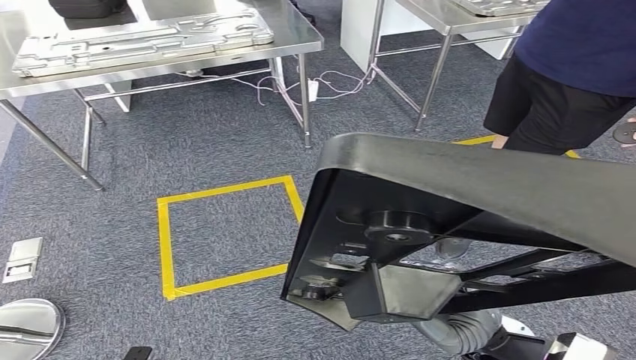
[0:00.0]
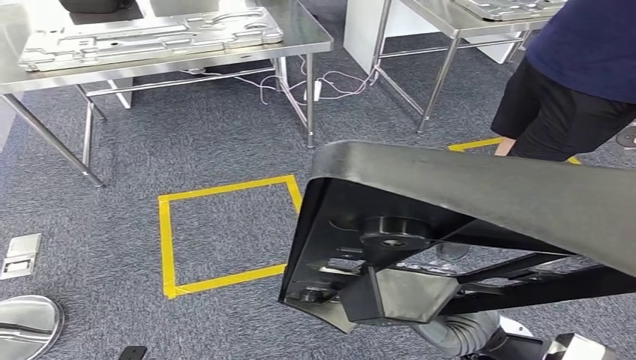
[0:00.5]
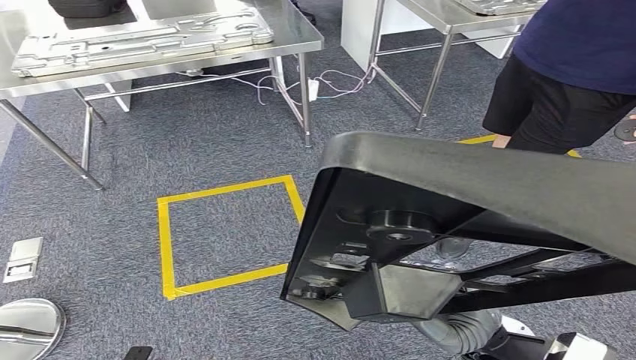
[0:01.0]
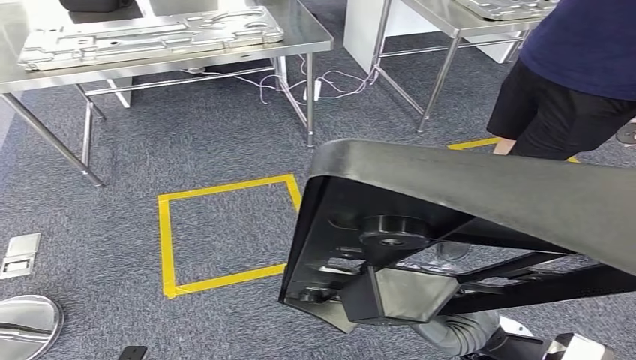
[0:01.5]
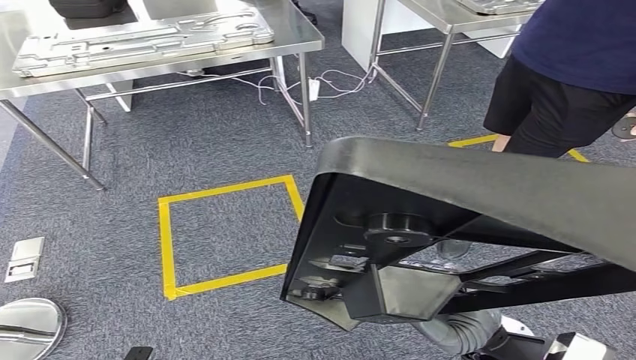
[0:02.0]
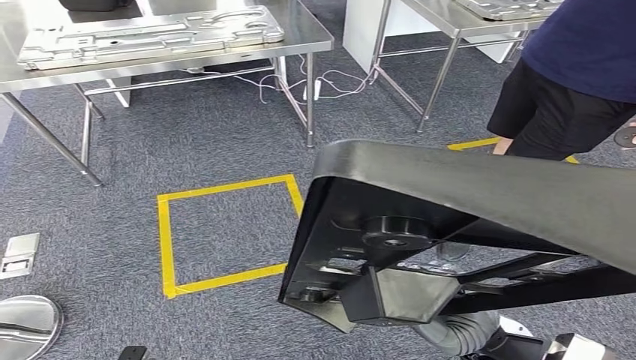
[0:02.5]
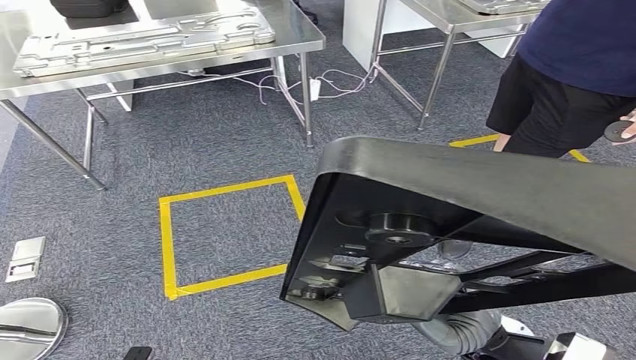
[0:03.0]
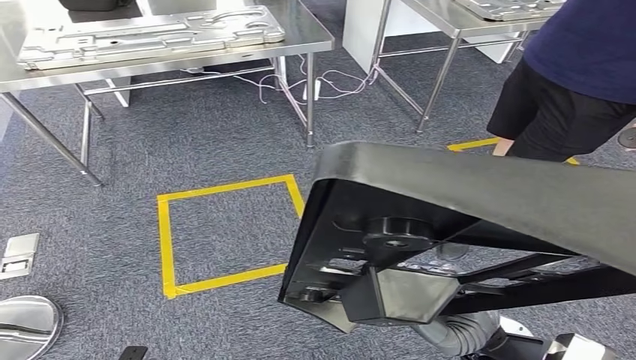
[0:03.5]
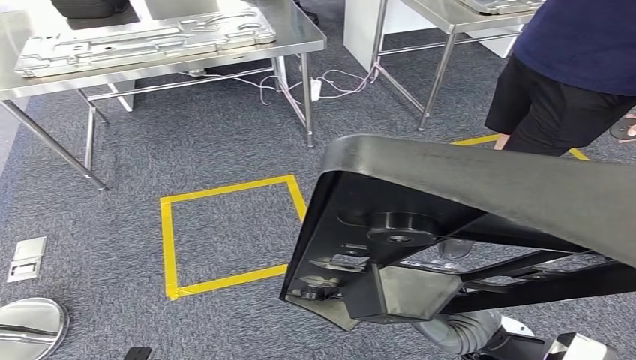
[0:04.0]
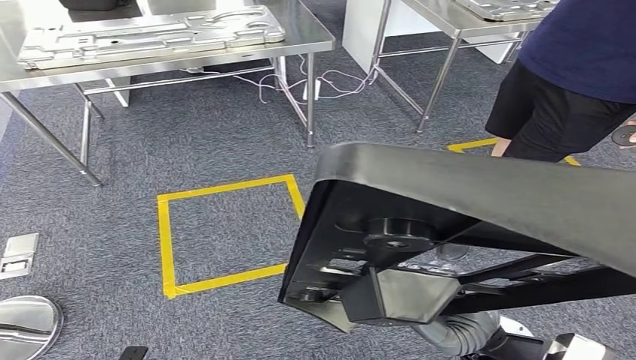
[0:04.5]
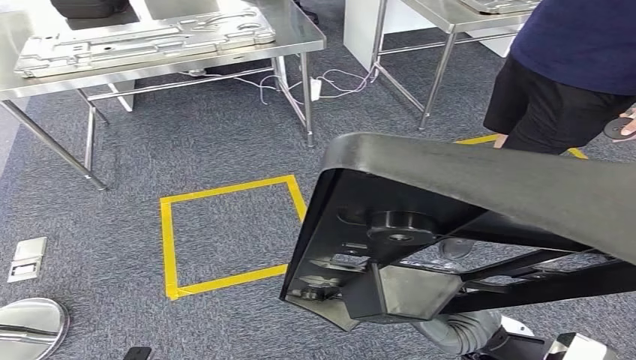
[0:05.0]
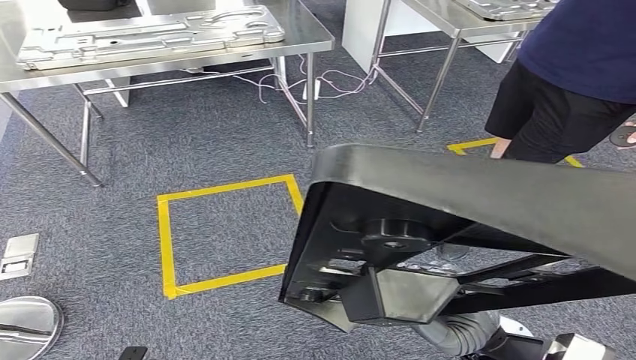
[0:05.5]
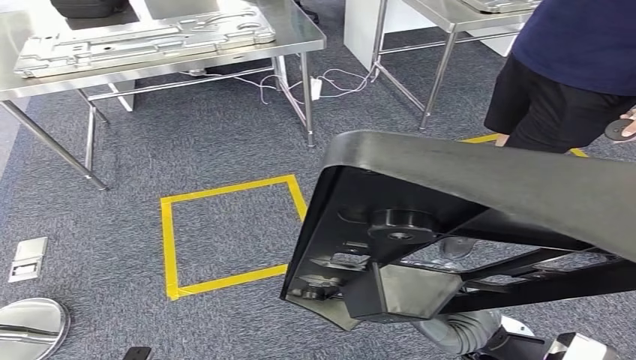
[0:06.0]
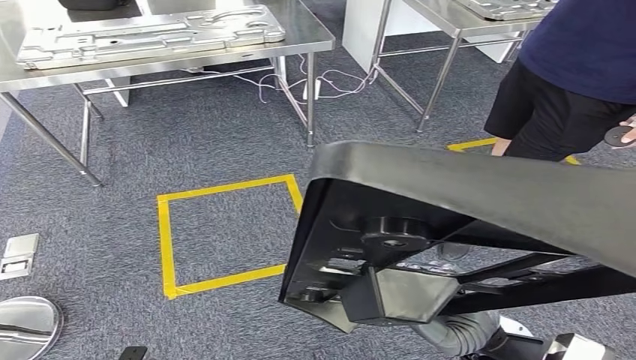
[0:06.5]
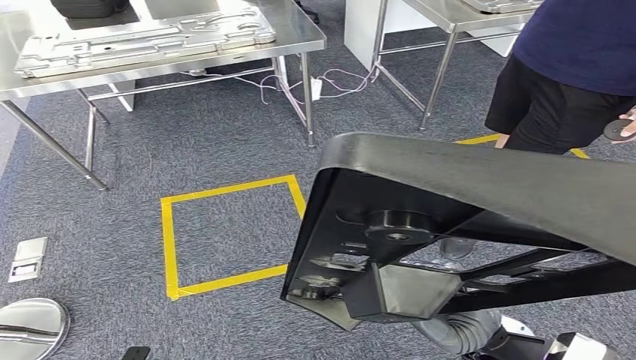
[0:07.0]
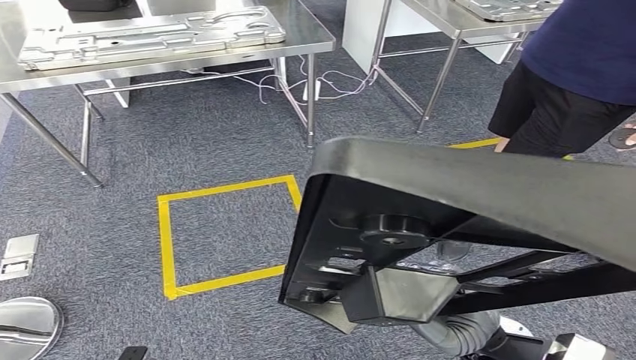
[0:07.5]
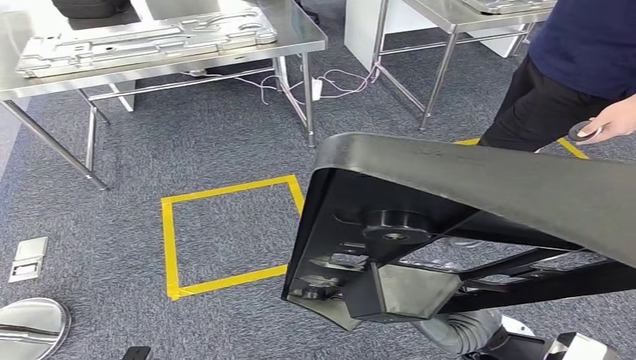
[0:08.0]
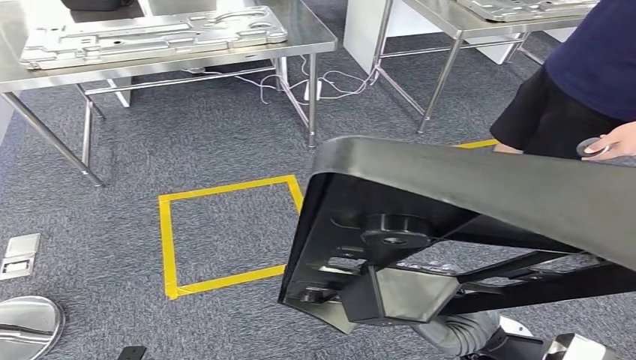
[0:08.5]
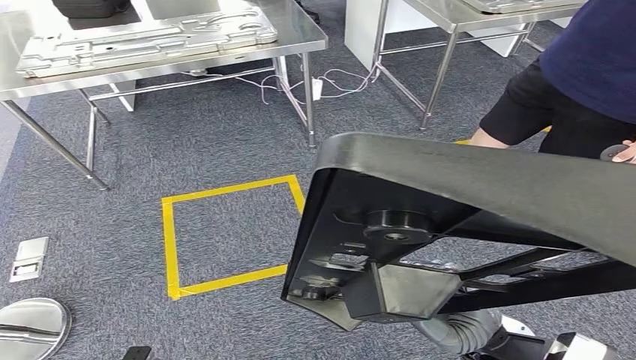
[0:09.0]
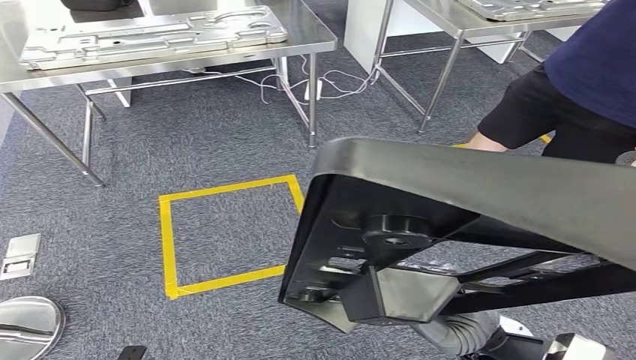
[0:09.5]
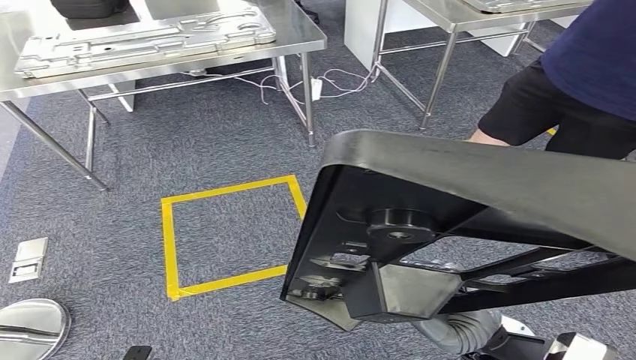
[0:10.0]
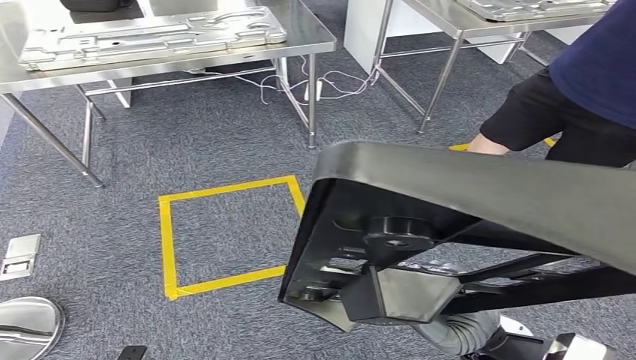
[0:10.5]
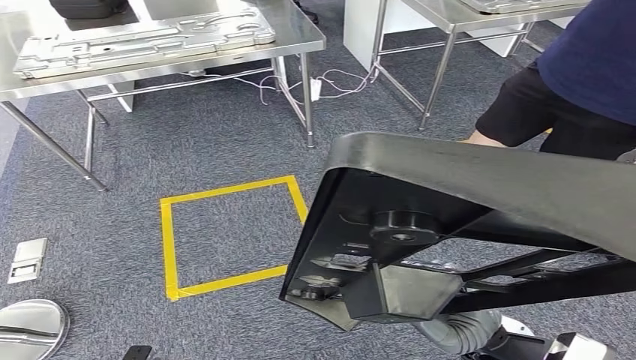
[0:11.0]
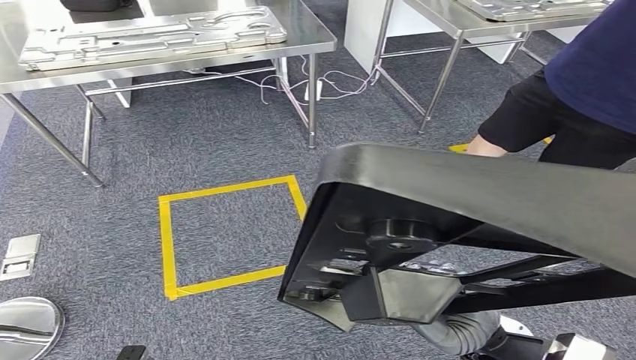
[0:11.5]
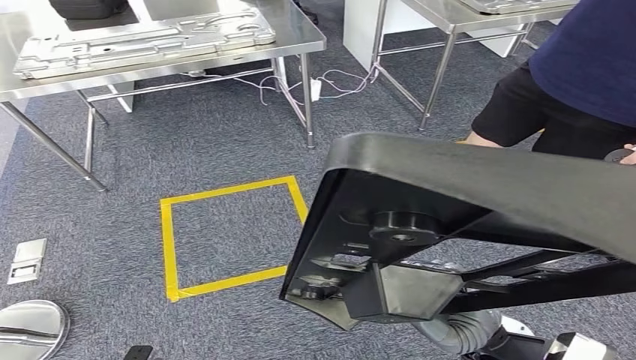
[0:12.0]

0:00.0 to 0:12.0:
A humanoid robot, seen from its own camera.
0:00.0 to 0:12.0: Both hands stay put.

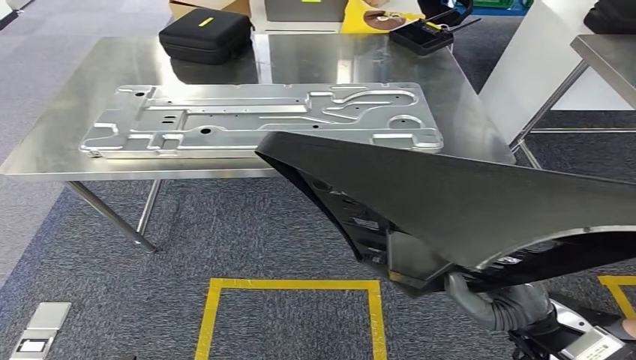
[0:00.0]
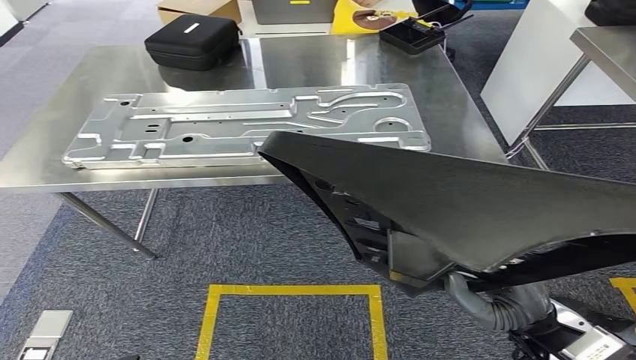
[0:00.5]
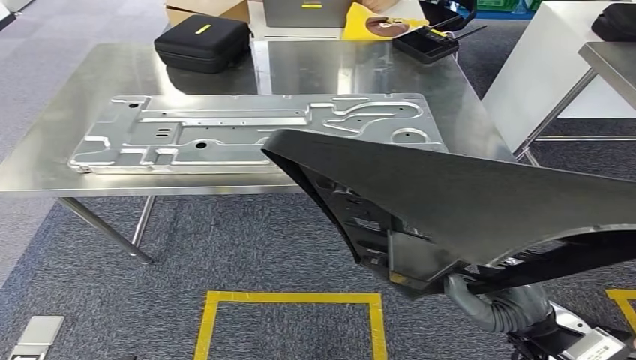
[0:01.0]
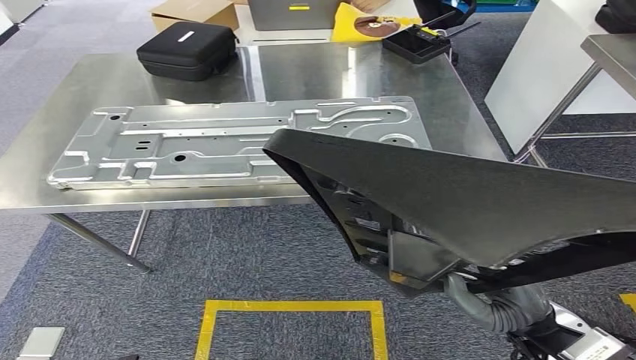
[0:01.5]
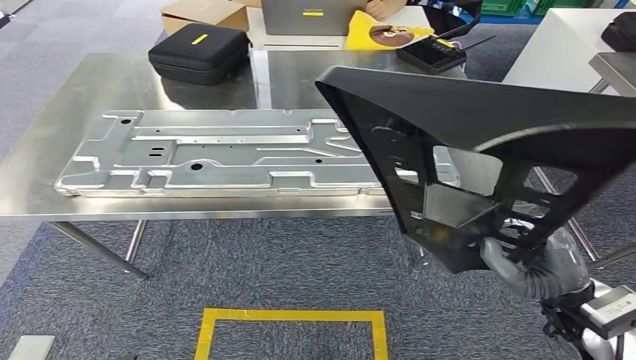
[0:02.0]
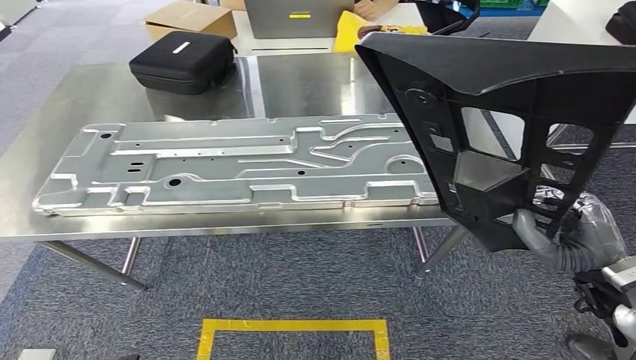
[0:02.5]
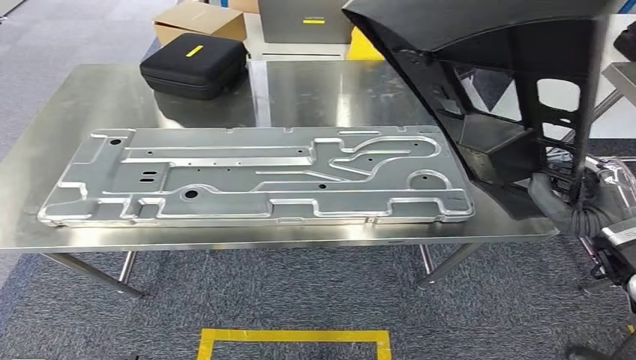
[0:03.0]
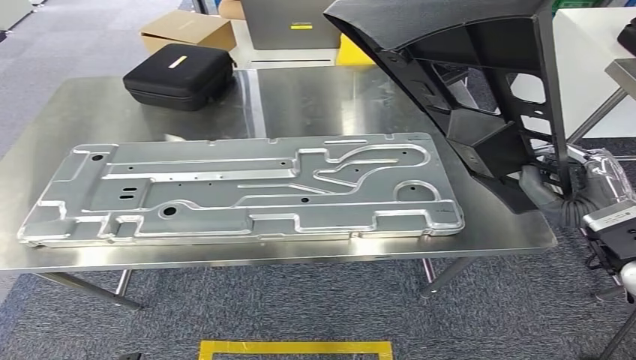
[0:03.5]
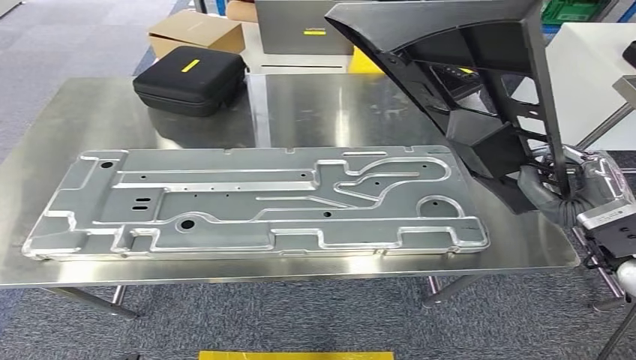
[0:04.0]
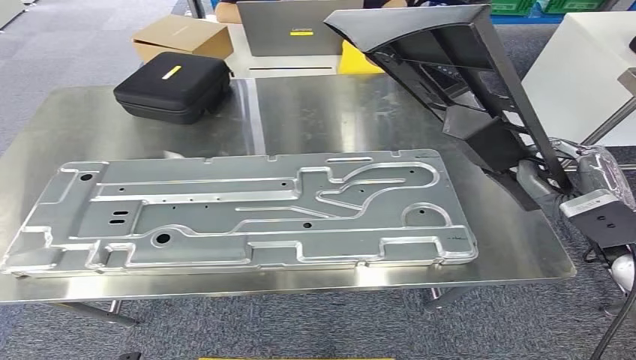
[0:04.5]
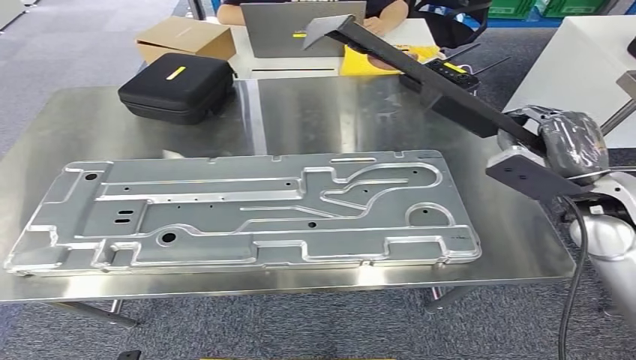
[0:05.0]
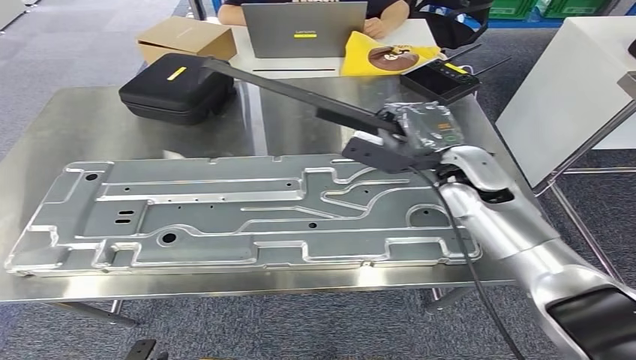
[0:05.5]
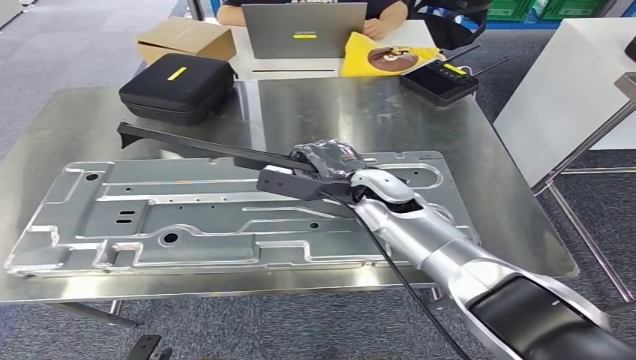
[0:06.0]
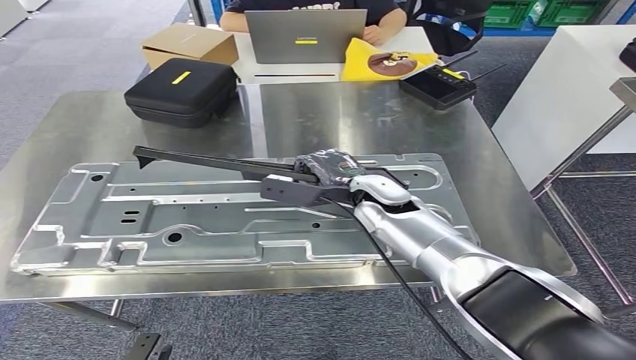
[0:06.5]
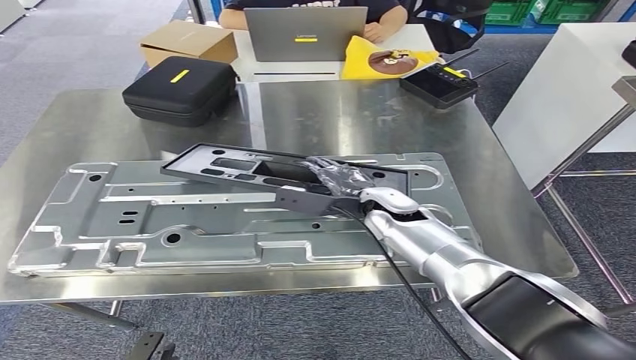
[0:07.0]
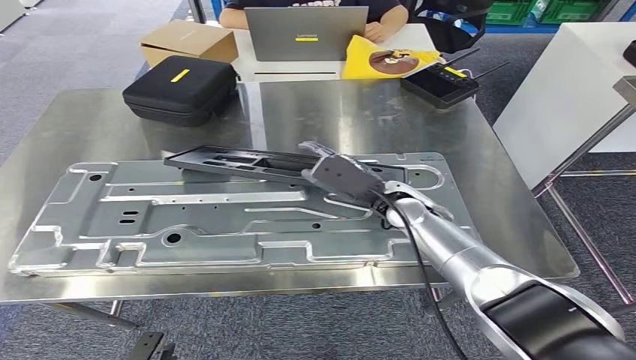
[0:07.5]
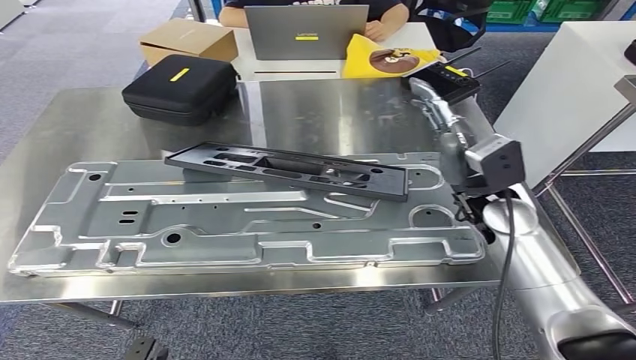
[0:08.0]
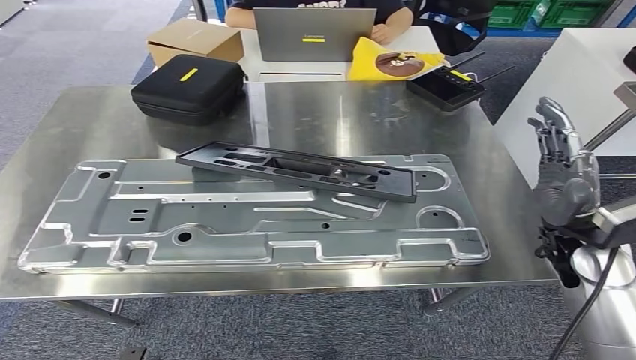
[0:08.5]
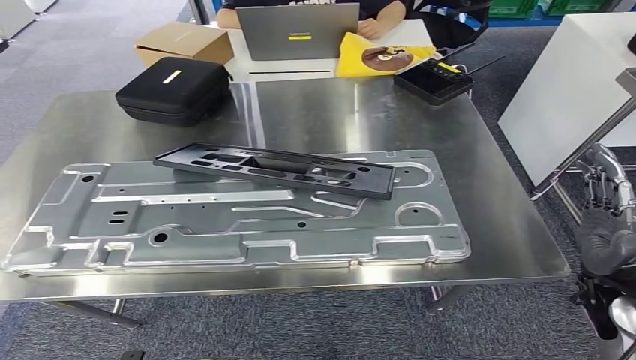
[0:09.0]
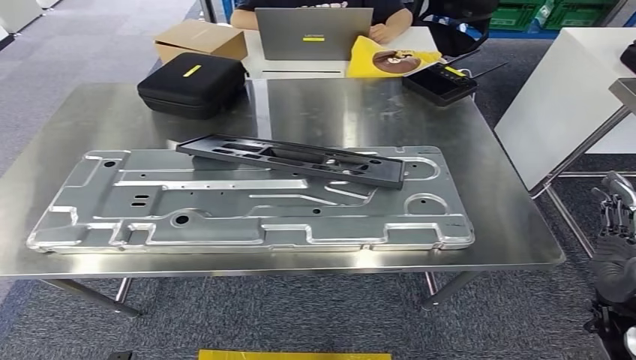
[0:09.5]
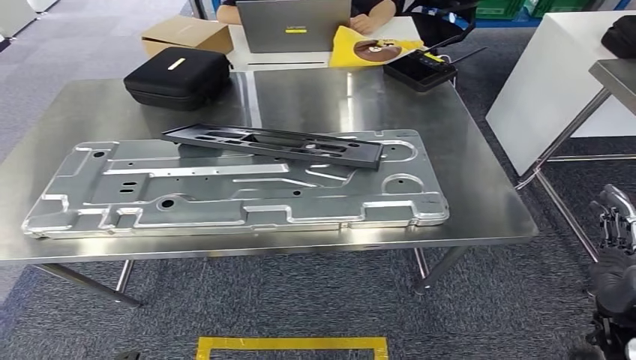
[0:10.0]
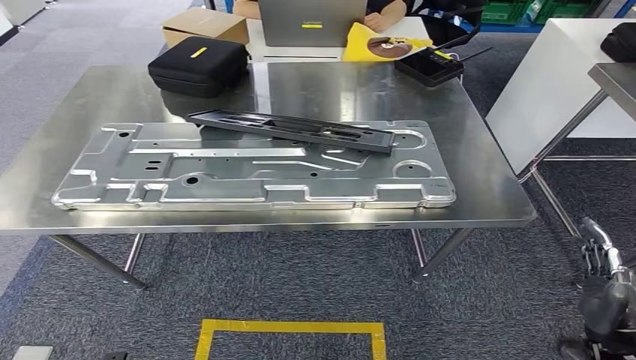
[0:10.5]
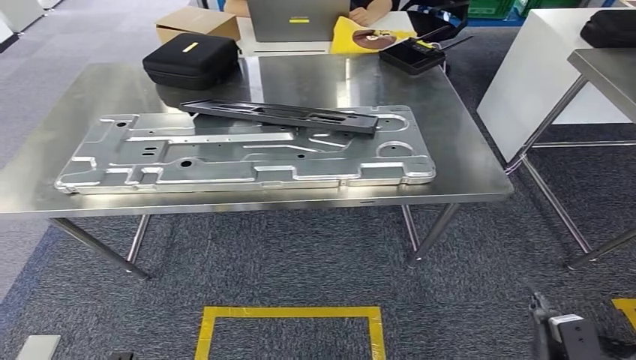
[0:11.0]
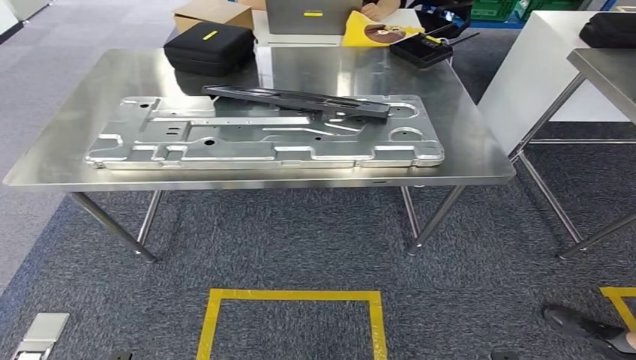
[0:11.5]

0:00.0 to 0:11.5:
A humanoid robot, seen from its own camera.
Step, 0:00.0 to 0:10.0: Insert the large material into the corresponding slot on the workbench.
0:06.0 to 0:07.5: The right hand ends up roughly 5 cm from where it was.
